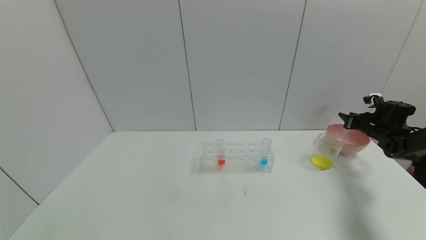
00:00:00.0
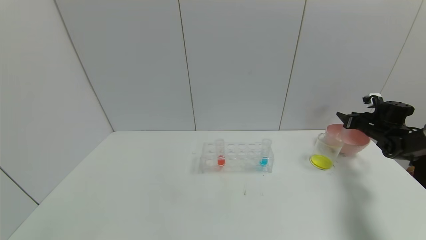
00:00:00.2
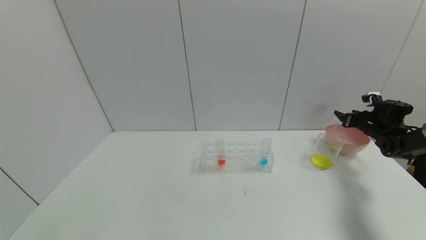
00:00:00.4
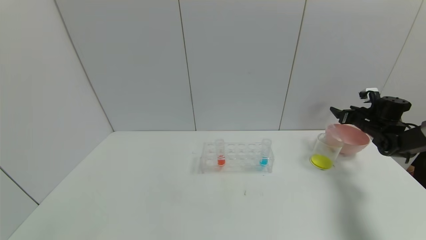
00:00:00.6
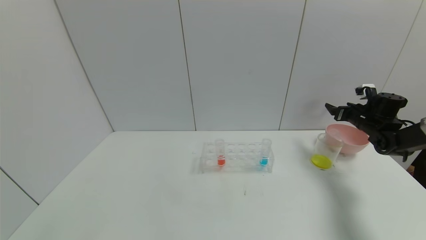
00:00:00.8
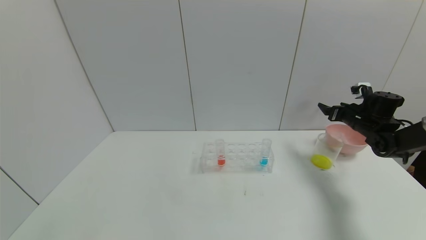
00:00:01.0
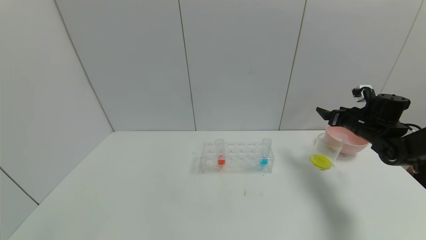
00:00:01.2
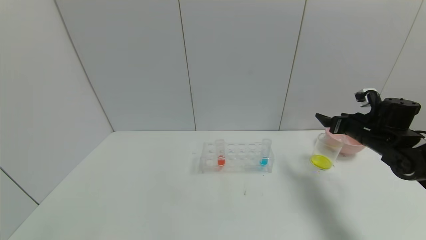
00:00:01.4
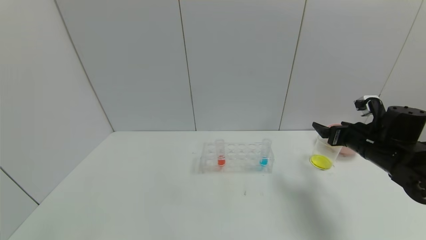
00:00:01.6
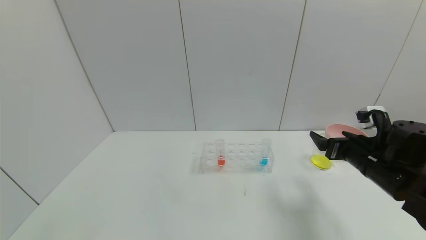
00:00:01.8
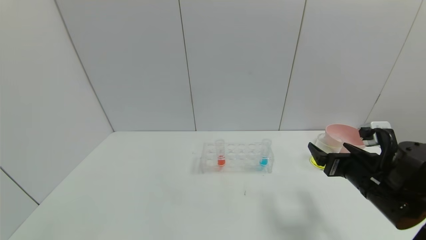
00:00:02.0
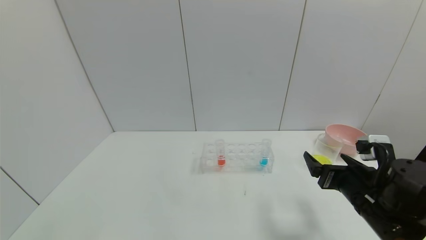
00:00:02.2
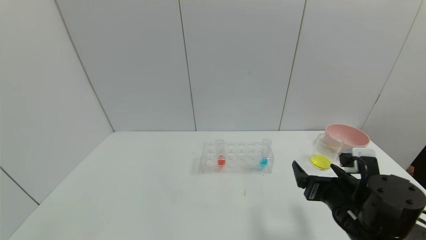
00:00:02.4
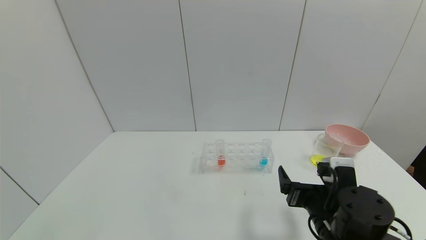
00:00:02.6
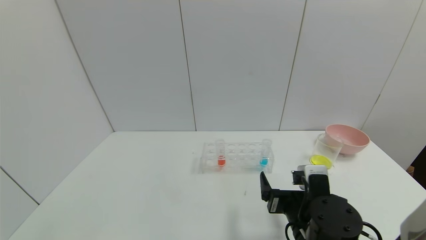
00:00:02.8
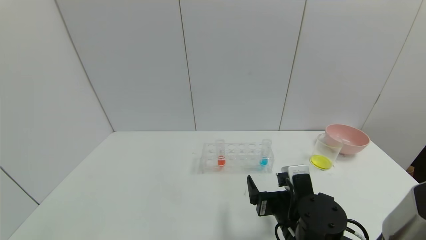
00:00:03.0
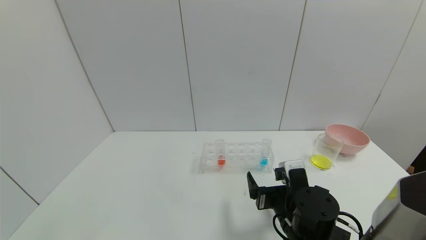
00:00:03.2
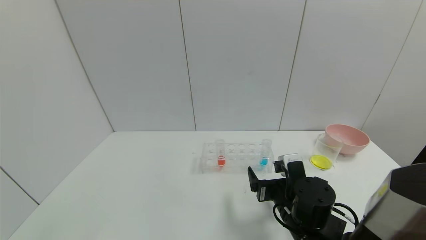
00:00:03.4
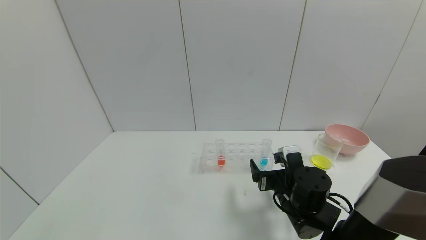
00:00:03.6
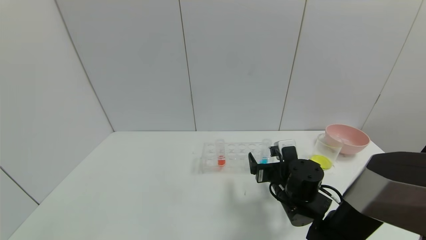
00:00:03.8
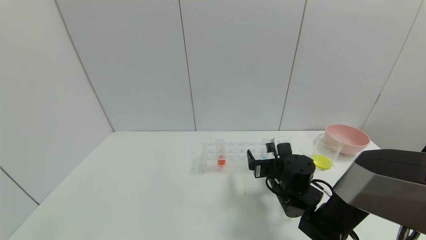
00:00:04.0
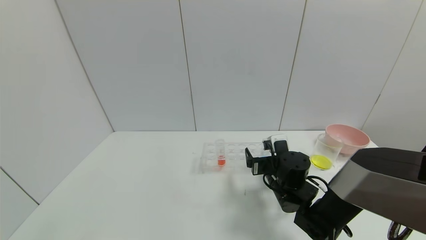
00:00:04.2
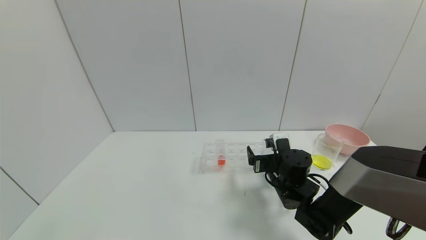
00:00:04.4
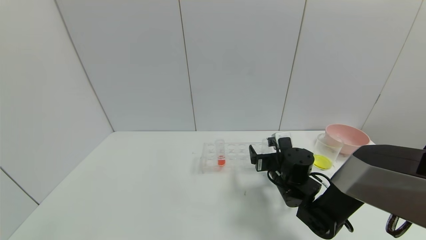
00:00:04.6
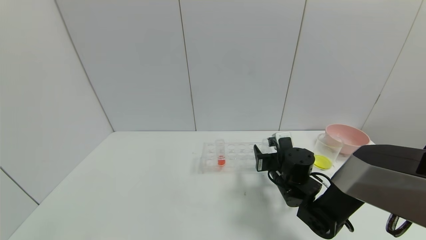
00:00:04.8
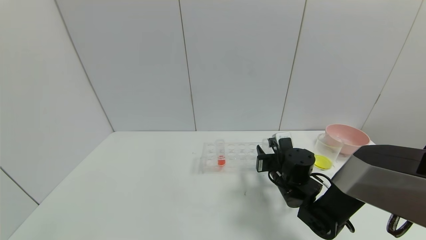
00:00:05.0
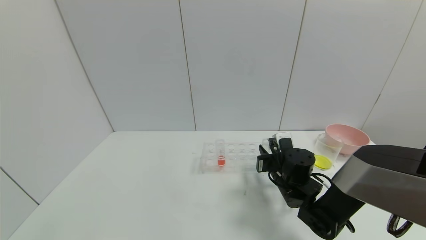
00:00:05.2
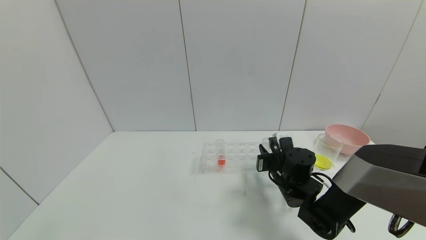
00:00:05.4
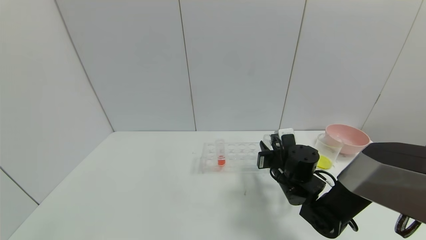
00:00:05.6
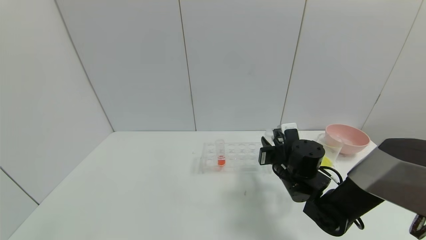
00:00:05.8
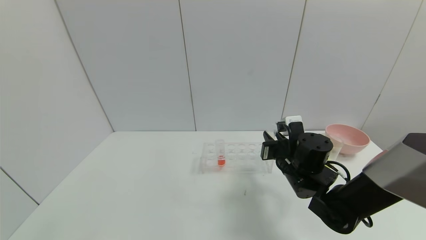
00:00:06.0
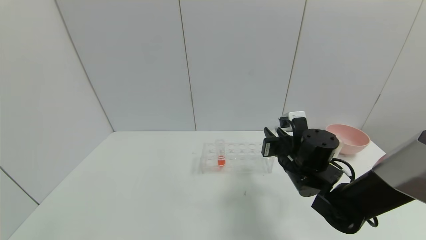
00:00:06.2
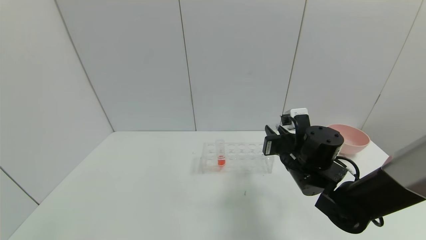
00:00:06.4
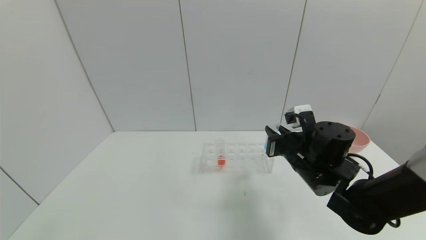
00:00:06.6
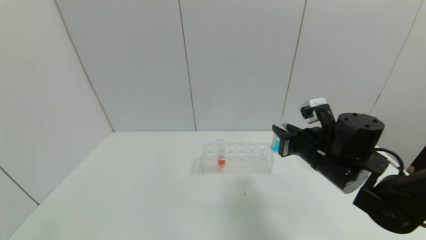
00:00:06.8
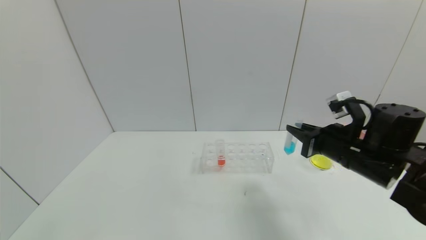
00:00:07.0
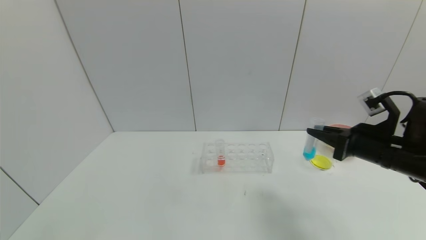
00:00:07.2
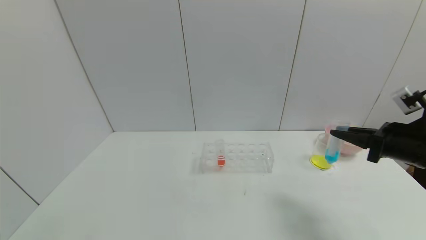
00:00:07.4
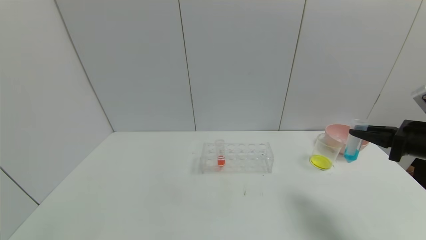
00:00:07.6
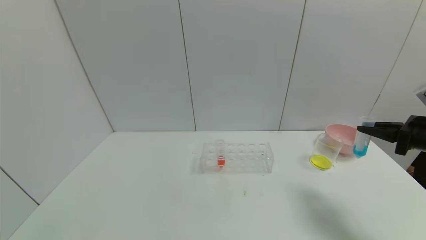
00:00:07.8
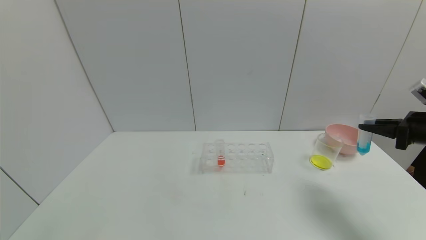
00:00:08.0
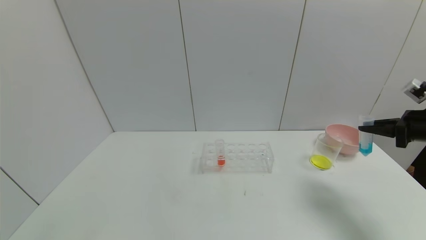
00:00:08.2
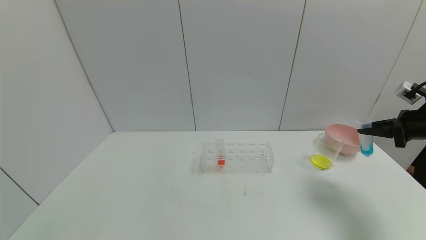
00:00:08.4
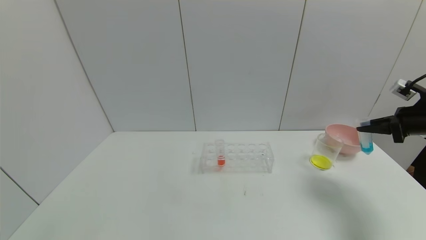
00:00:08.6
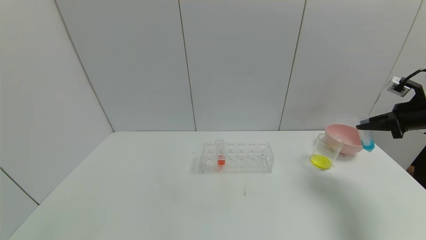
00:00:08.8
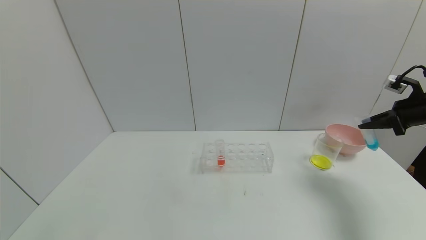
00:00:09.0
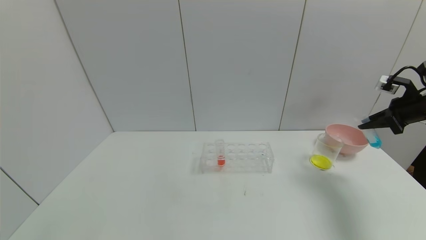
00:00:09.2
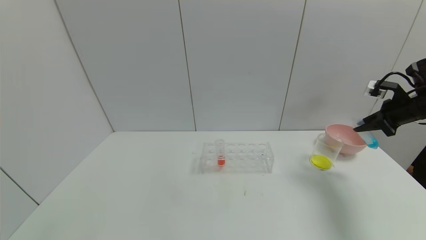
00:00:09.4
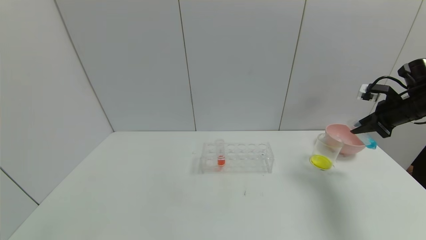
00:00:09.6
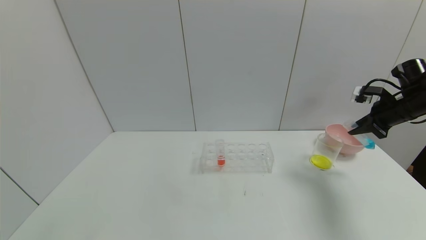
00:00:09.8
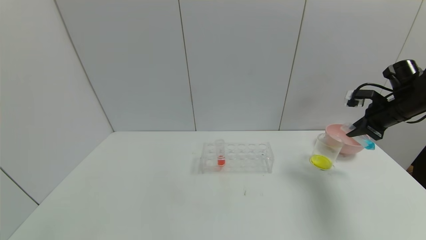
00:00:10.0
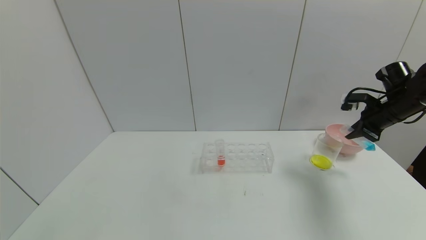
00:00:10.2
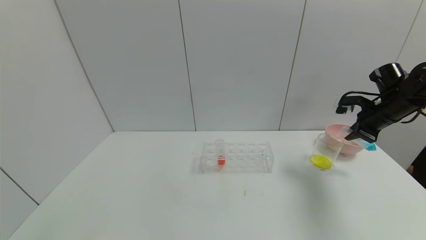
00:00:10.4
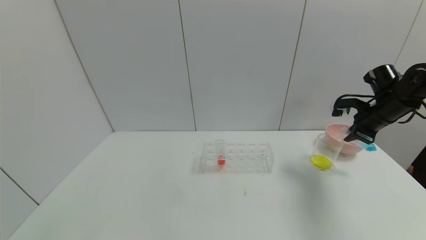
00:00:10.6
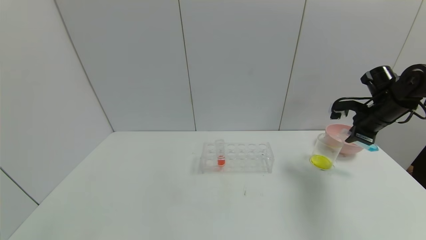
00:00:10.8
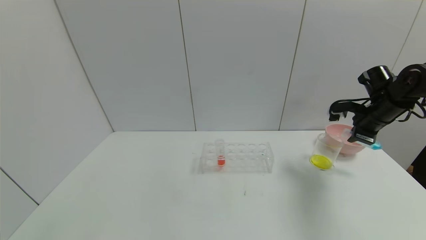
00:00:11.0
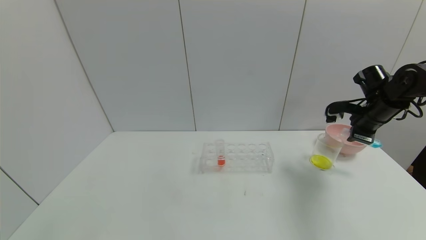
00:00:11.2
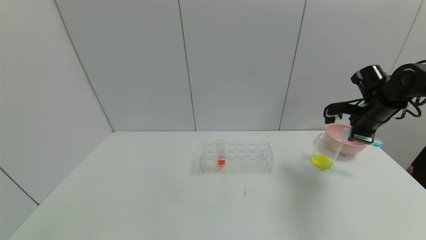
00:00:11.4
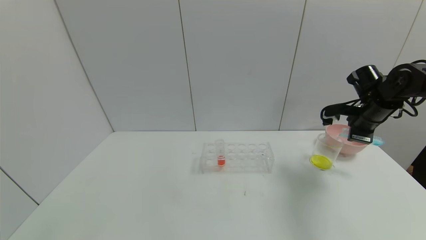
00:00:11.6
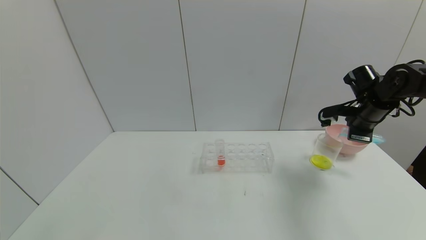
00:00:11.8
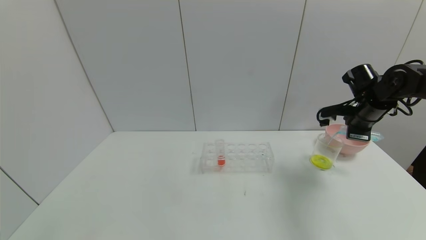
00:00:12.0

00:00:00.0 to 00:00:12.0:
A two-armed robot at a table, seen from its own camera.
Task of the whole recording: pick up the test tube with yellow pigment and the test tube with blue pigment by grippers and pour them into the beaker.
Step, 00:00:00.8 to 00:00:05.0: Grasp the blue reagent with the right gripper.
00:00:00.0 to 00:00:01.6: The right gripper is displaced to the left and backward by roughly 25 cm, and opens its fingers.
00:00:01.6 to 00:00:03.0: The right gripper goes some 25 cm to the left, backward and downward.
00:00:03.0 to 00:00:04.4: The right gripper heads forward, covering about 10 cm.
00:00:04.4 to 00:00:06.0: The right gripper shifts roughly 5 cm upward, and closes.
00:00:06.0 to 00:00:07.6: The right gripper is displaced to the right and upward by roughly 25 cm.
00:00:07.6 to 00:00:09.0: The right gripper is displaced forward and to the right by about 10 cm.
00:00:09.0 to 00:00:10.4: The right gripper is displaced to the left by about 5 cm.

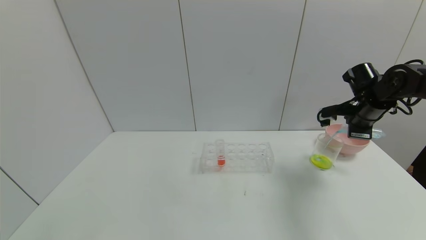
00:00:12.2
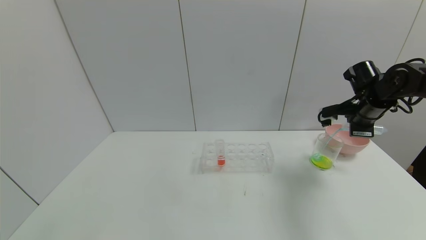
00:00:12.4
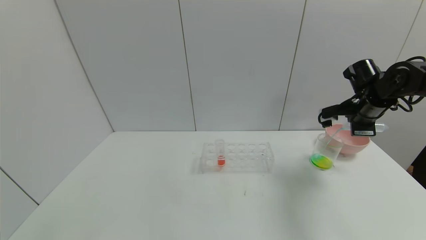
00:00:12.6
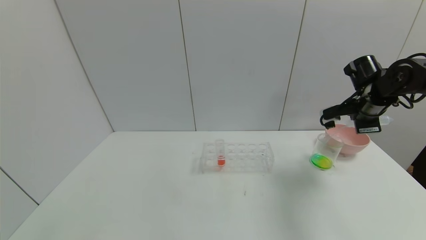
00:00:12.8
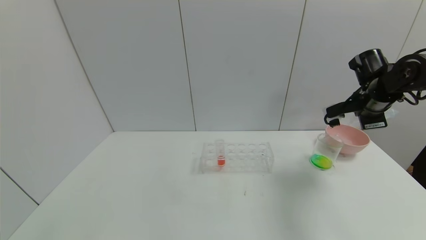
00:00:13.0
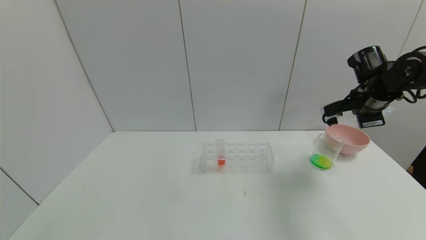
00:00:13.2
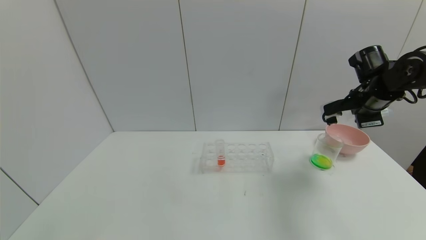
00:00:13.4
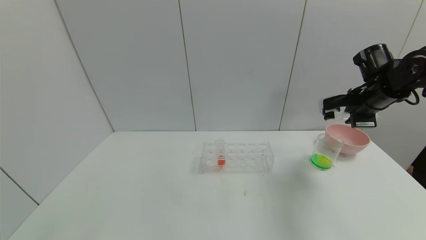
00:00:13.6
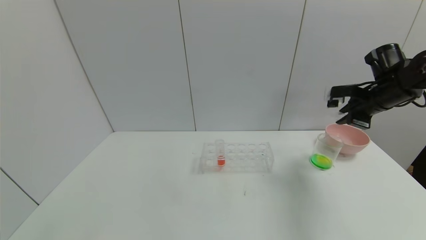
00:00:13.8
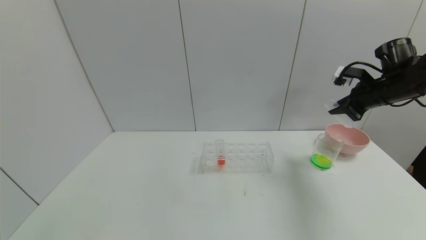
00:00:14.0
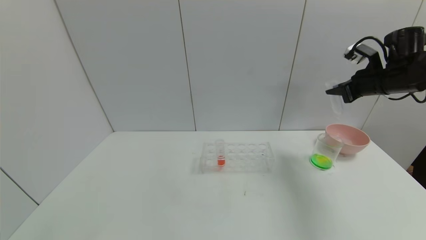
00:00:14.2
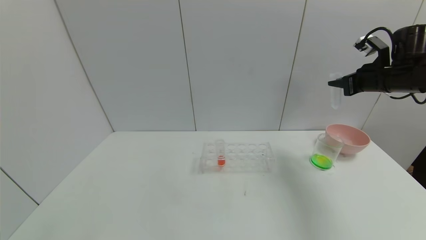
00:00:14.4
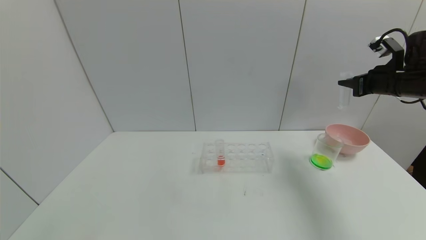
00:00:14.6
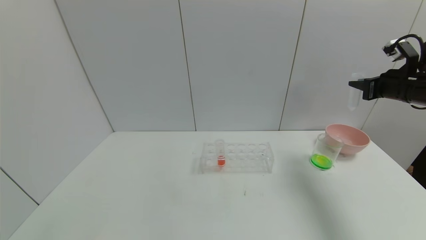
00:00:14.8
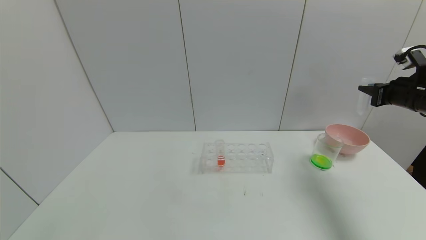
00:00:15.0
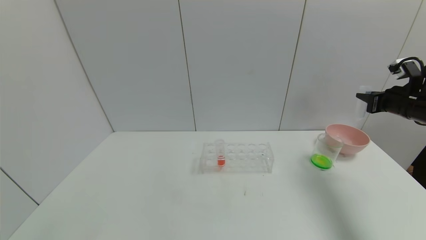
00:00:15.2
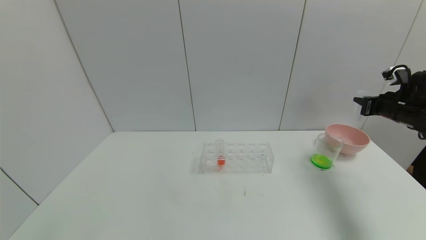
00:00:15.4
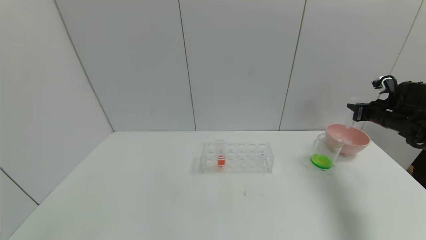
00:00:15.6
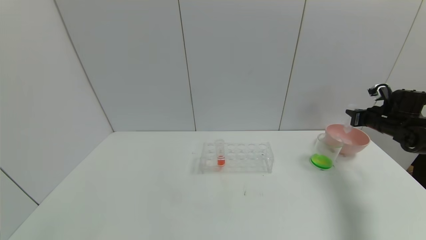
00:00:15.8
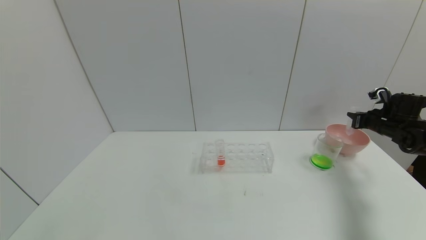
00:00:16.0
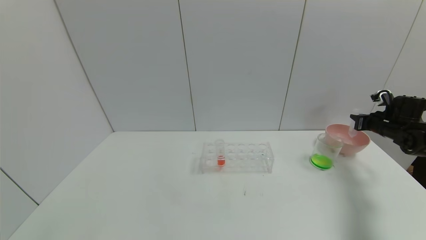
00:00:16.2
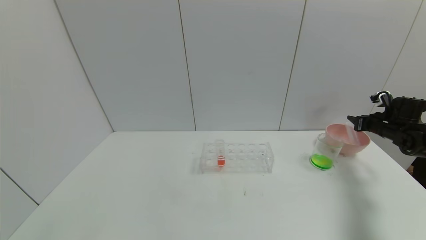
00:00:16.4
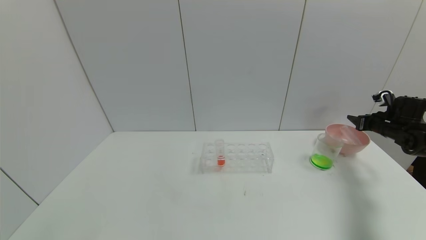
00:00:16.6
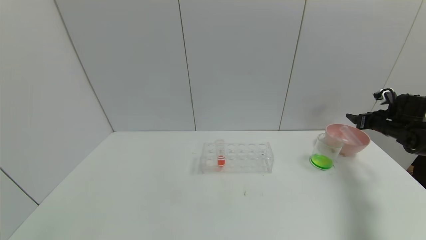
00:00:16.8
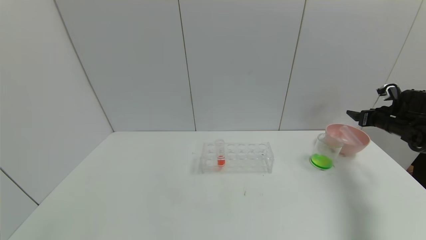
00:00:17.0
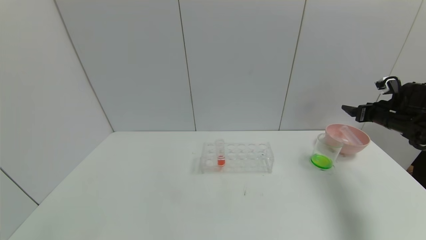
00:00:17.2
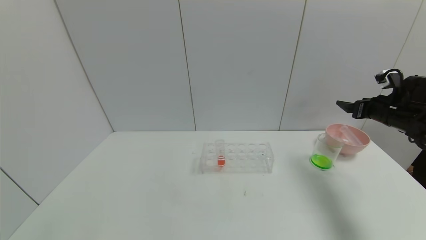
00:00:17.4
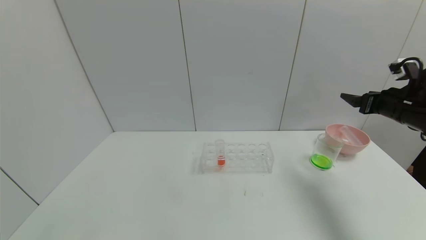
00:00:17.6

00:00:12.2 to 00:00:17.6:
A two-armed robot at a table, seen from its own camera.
Task of the whole recording: pick up the test tube with yellow pigment and the test tube with blue pigment by grippers and pour them into the beaker.
Step, 00:00:13.2 to 00:00:16.6: Place the test tube into the bowl with the right gripper.
00:00:12.2 to 00:00:13.6: The grippers stay close to where they were, moving slightly.
00:00:13.6 to 00:00:15.0: The right gripper moves to the right, some 10 cm.
00:00:15.0 to 00:00:16.2: The right gripper goes approximately 15 cm downward, forward and to the right.
00:00:16.2 to 00:00:17.6: The right gripper moves upward, backward and to the left, roughly 15 cm, and opens its fingers.
